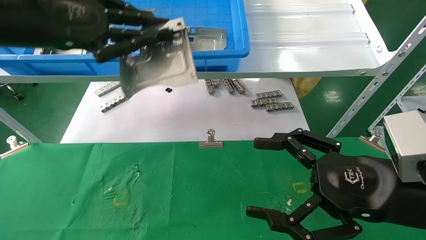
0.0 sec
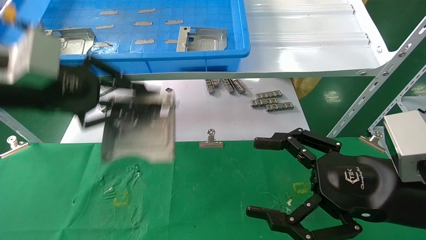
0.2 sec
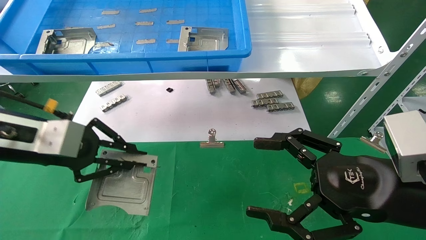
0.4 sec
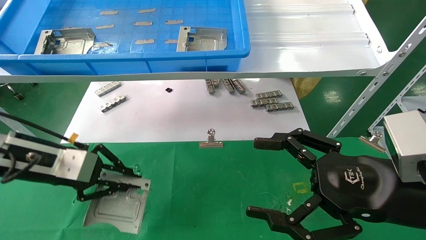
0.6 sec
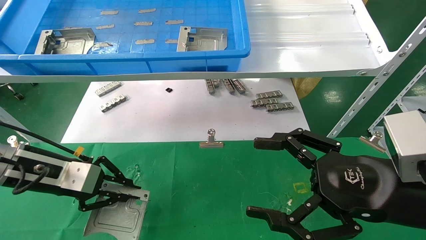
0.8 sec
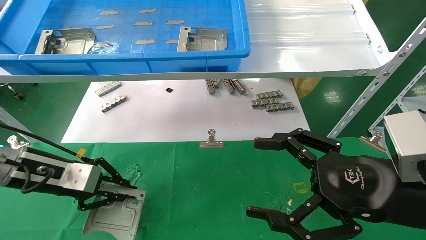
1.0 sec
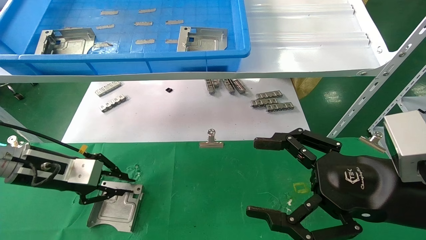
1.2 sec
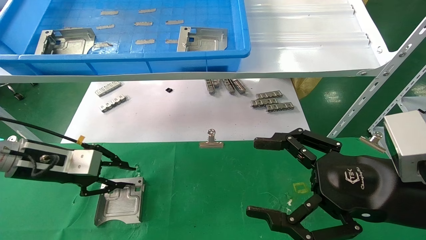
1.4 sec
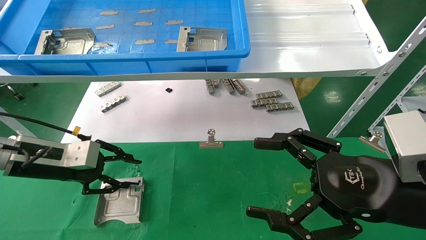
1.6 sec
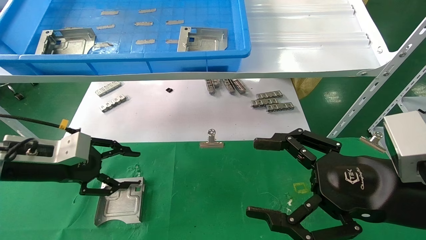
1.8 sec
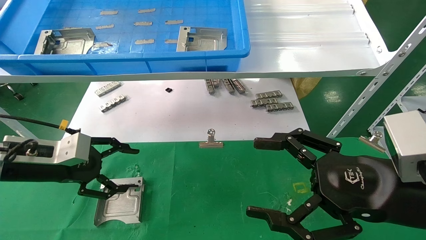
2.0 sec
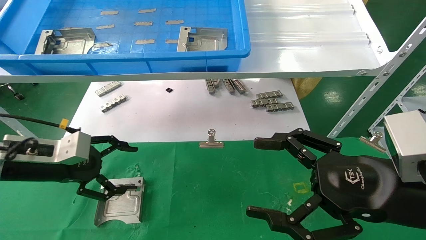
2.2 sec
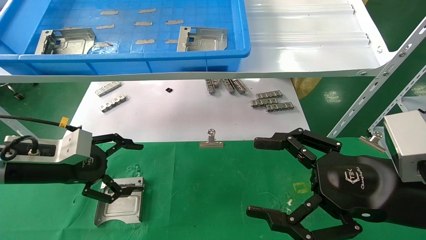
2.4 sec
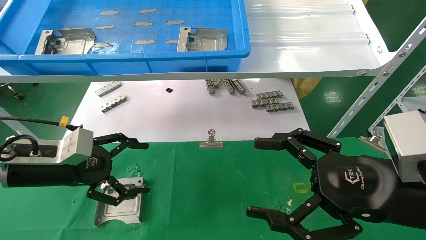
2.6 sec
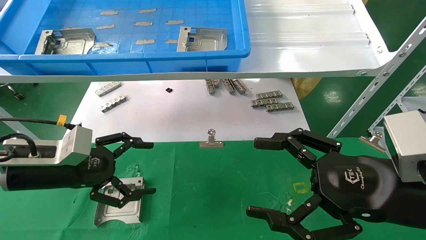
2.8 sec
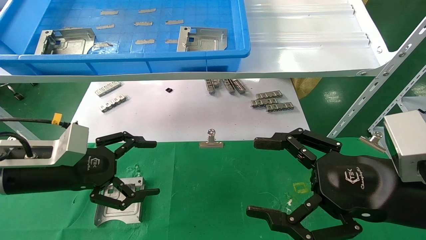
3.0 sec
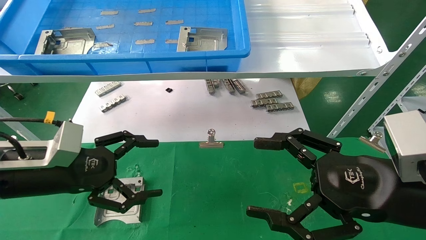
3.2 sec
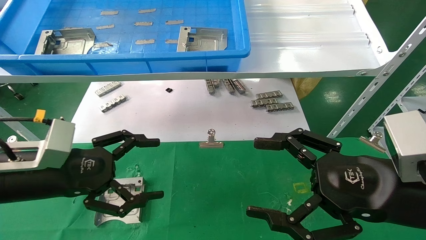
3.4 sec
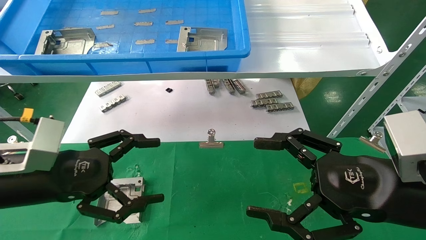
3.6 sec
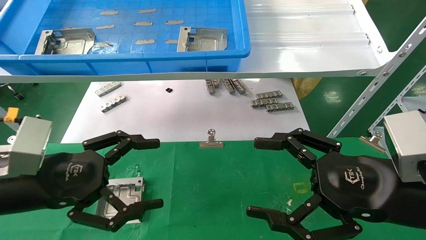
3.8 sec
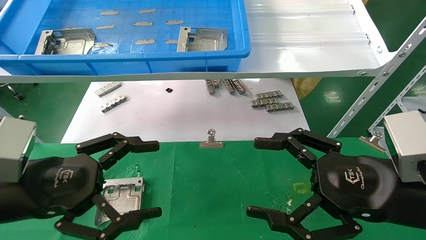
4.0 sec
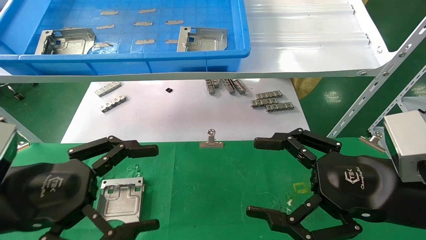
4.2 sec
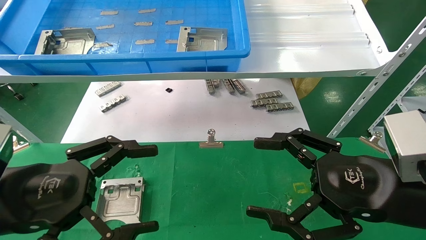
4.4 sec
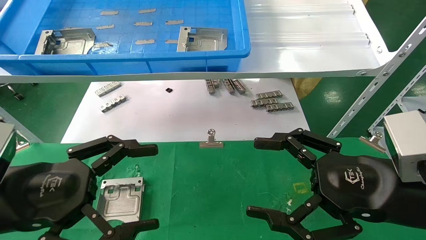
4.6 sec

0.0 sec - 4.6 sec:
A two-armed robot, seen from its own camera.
Task of the whole recording: use the mechanical arm to pick up the parts and place them on the table.
Step, 0.0 sec - 1.4 sec: Place the hard drive bracket into the box.
0.0 sec - 1.6 sec: The left gripper travels downward by approximately 20 cm.
1.6 sec - 3.0 sec: The left gripper changes place by roughly 5 cm, and opens.
3.0 sec - 4.6 sec: The left gripper goes approximately 10 cm backward.

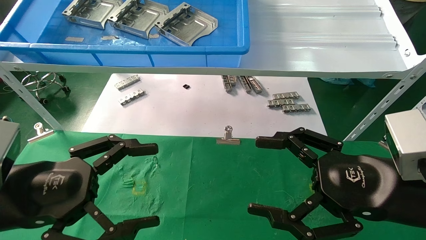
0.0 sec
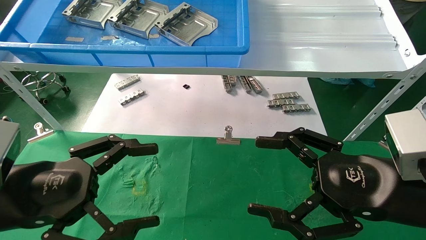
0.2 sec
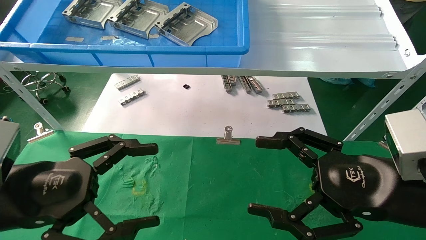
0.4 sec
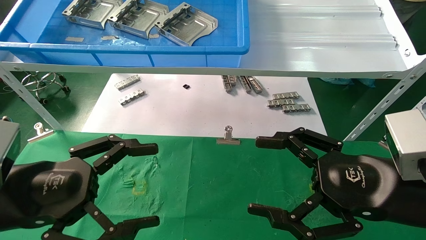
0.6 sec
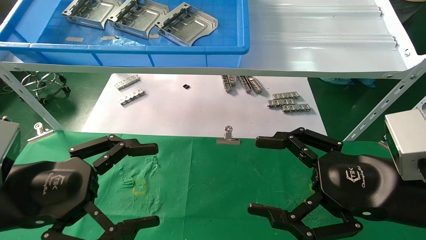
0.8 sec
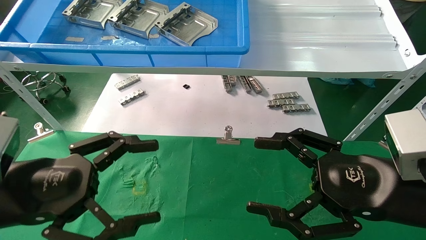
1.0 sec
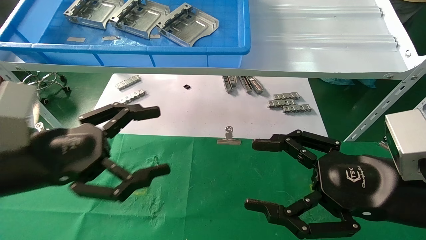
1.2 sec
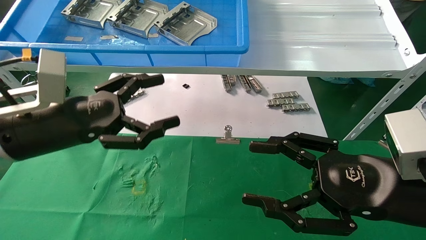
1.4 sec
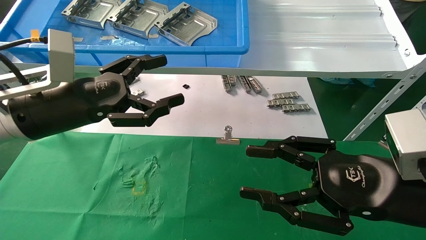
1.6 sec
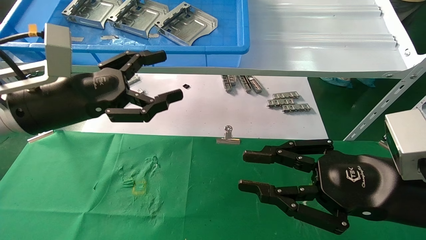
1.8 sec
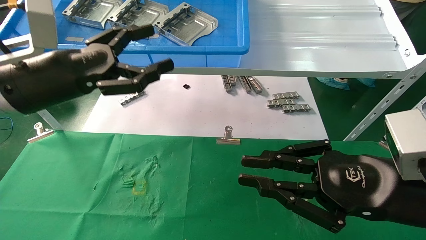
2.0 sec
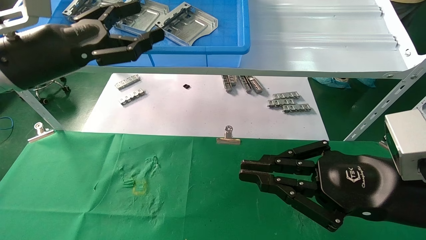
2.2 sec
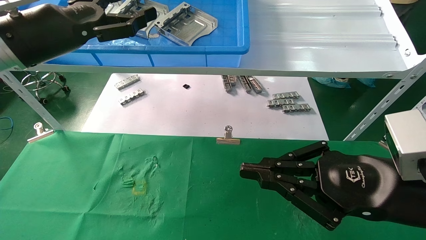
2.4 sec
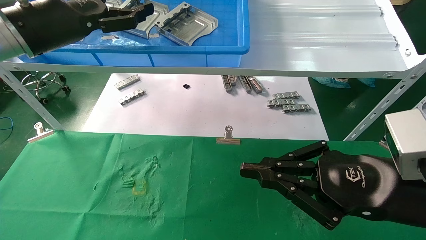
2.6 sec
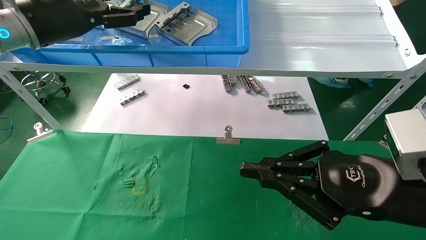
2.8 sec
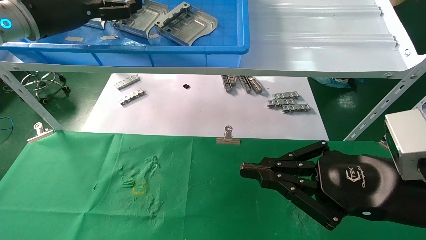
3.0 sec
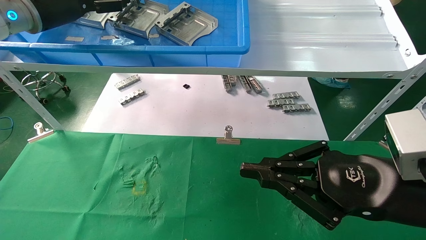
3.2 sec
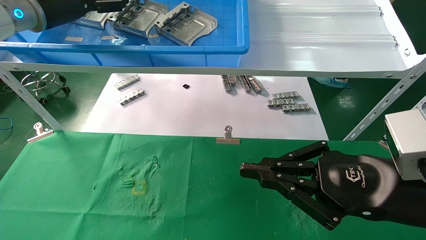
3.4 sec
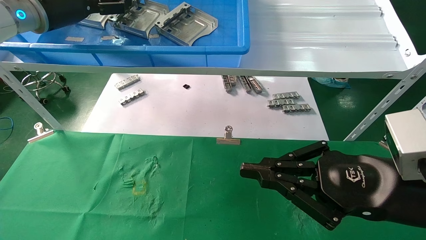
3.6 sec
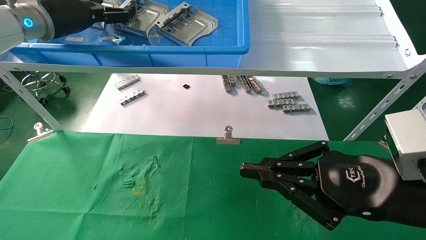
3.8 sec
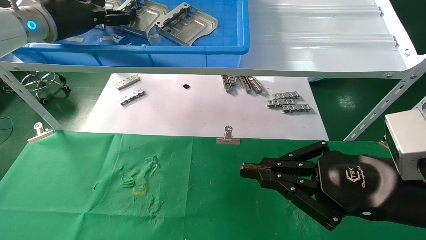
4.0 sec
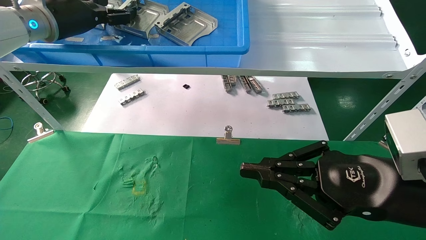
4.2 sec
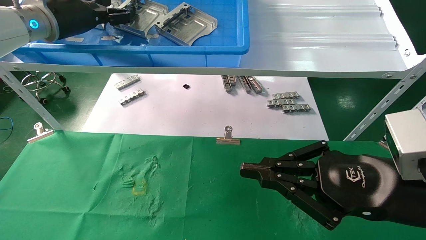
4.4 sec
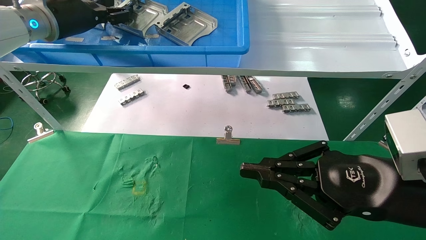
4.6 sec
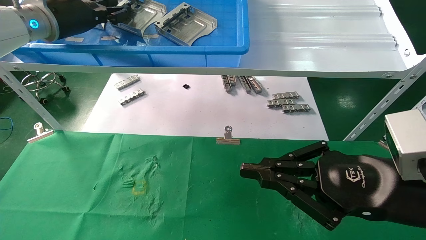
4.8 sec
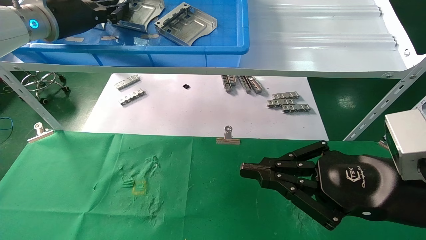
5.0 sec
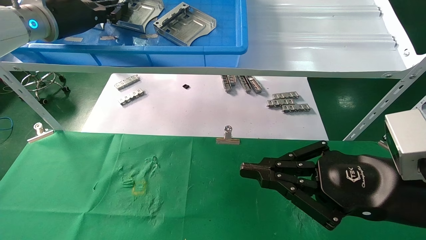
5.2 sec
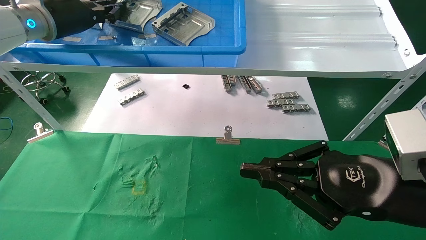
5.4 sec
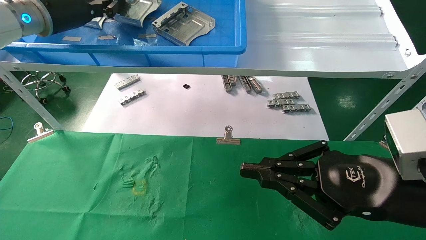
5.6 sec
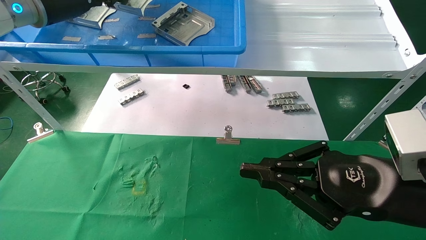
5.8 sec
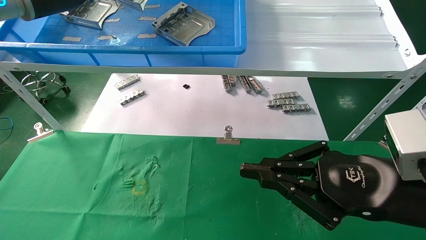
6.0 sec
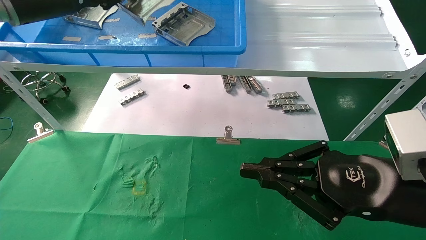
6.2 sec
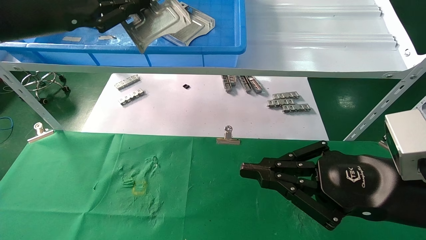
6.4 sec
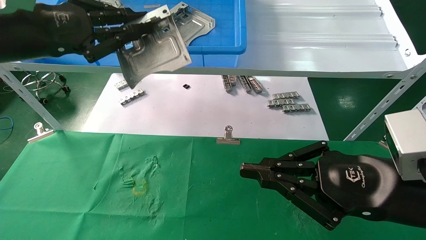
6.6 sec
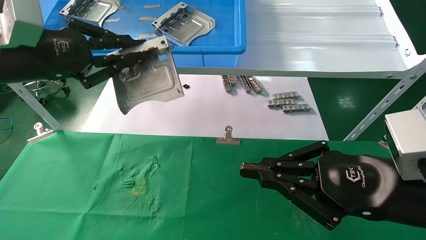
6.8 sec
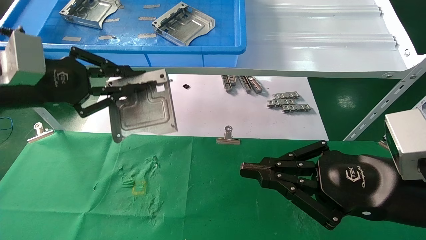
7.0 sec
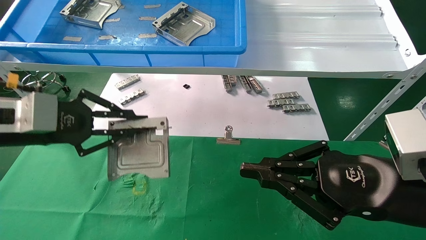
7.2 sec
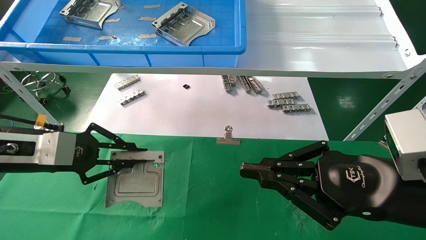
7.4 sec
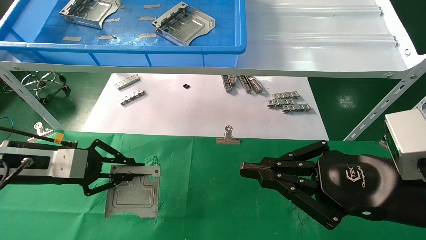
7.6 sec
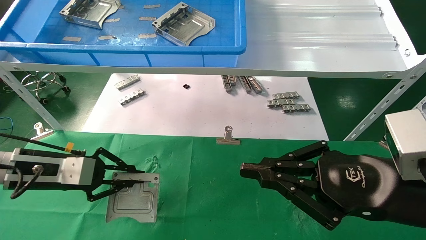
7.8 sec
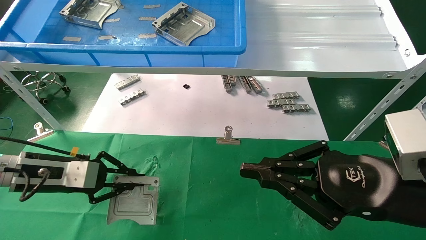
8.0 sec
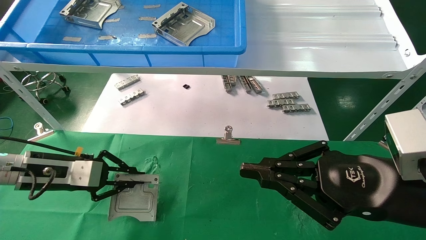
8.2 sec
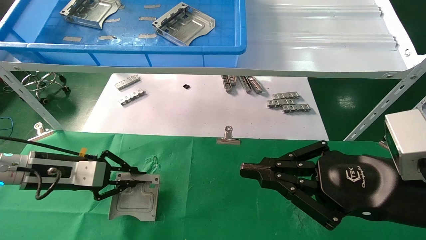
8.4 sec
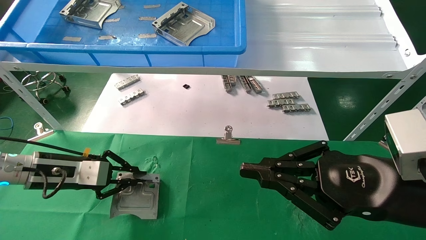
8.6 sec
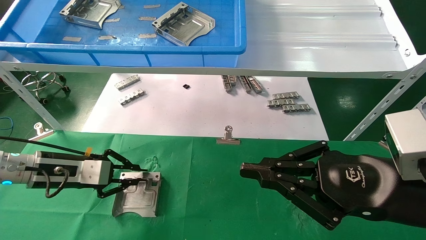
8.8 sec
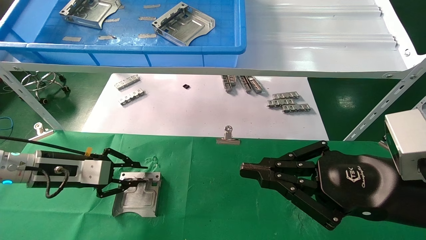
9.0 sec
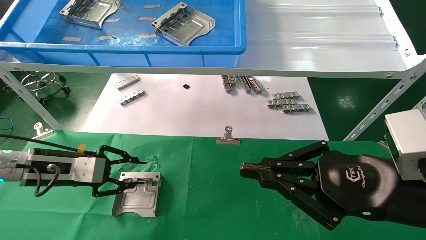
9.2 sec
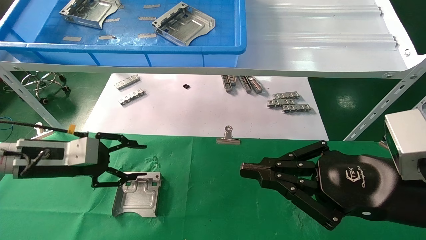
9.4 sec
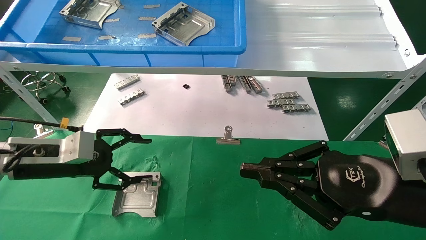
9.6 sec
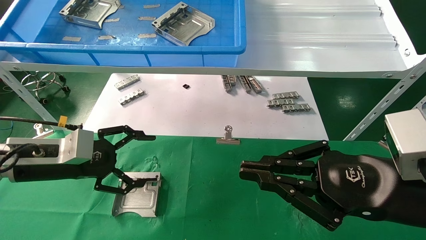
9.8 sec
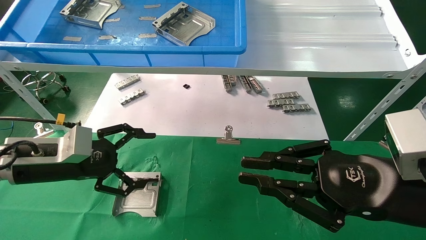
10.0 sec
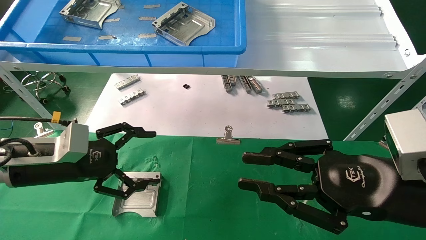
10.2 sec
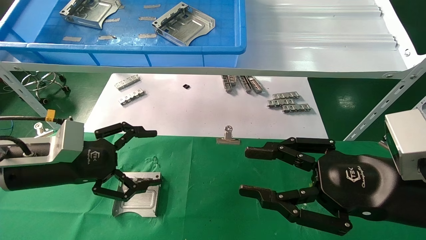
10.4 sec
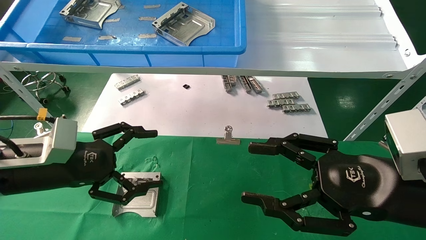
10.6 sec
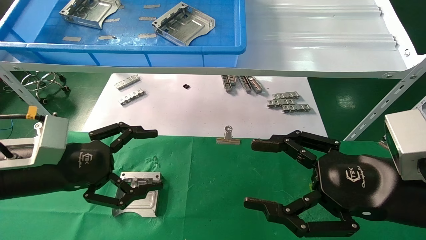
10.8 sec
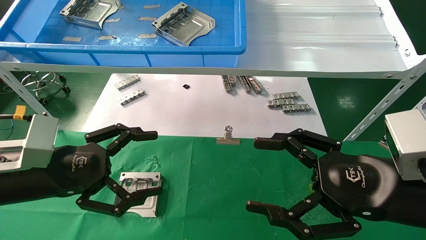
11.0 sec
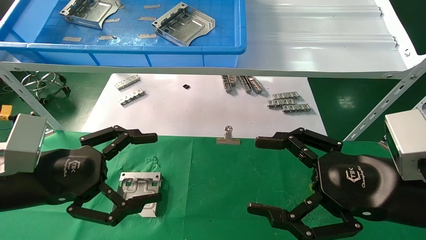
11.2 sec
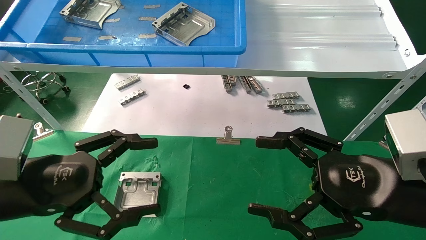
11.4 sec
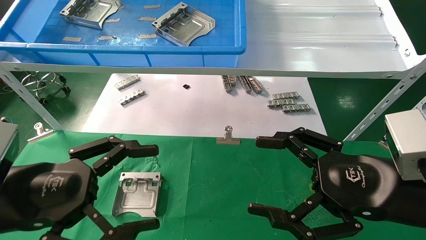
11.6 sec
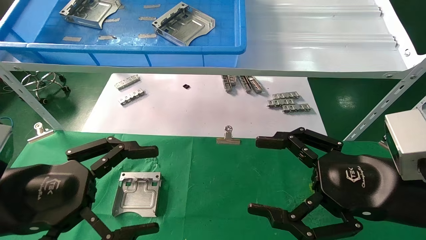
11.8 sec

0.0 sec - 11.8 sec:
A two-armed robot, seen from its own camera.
Task of the whole recording: use the mechanical arm to pick up the parts and place them on the table.
Step, 1.4 sec - 5.2 sec: Pick up the hard drive bracket from the feeding area.
Step, 5.4 sec - 9.0 sec: Place the hard drive bracket into the box.
0.0 sec - 1.4 sec: The left gripper is displaced forward by about 10 cm.
1.4 sec - 3.0 sec: The right gripper closes its fingers. Meanwhile the left gripper heads upward and forward, covering roughly 20 cm.
3.0 sec - 4.4 sec: The grippers move only a little.
4.4 sec - 6.0 sec: The left gripper ends up some 5 cm from where it was, and closes.
6.0 sec - 7.4 sec: The left gripper goes roughly 25 cm downward and backward.
7.4 sec - 8.8 sec: The left gripper shifts some 10 cm downward and forward.
8.8 sec - 10.4 sec: The left gripper moves backward, roughly 5 cm, and opens its fingers.
10.4 sec - 11.8 sec: The left gripper is displaced backward by about 10 cm; the right gripper opens.
